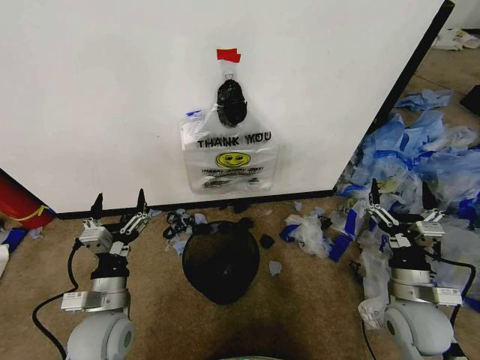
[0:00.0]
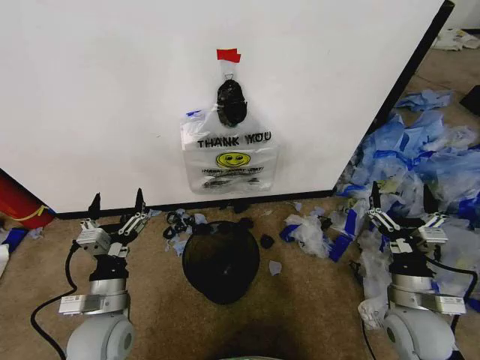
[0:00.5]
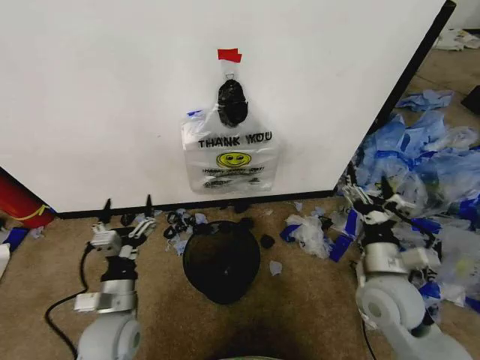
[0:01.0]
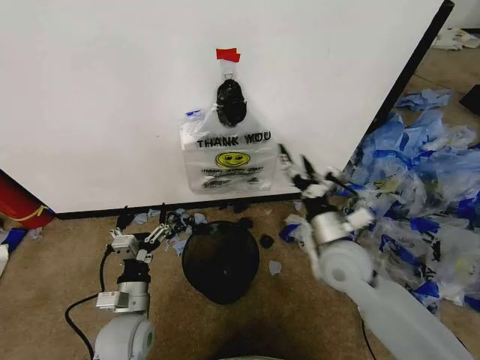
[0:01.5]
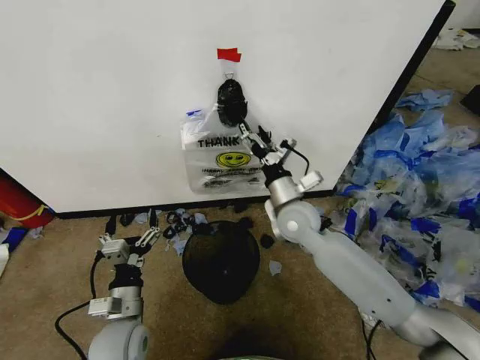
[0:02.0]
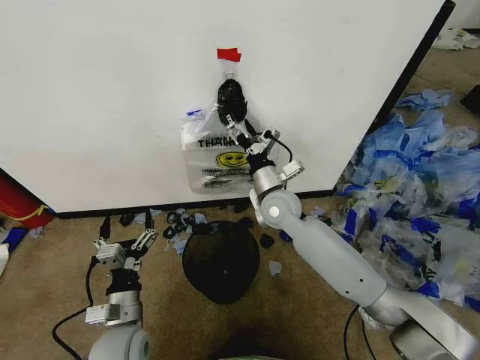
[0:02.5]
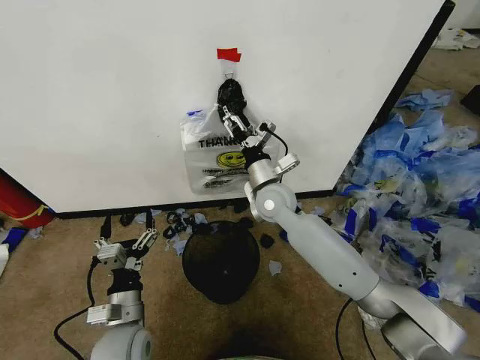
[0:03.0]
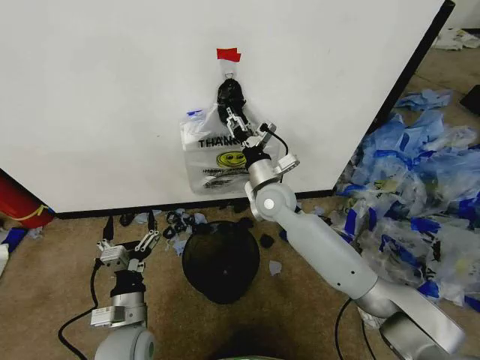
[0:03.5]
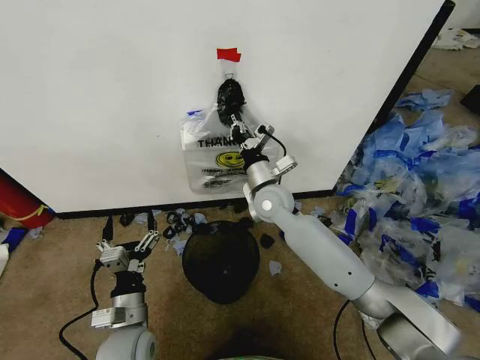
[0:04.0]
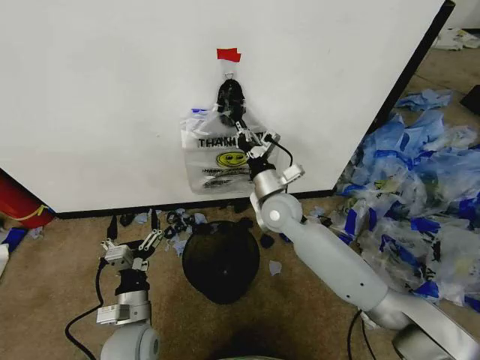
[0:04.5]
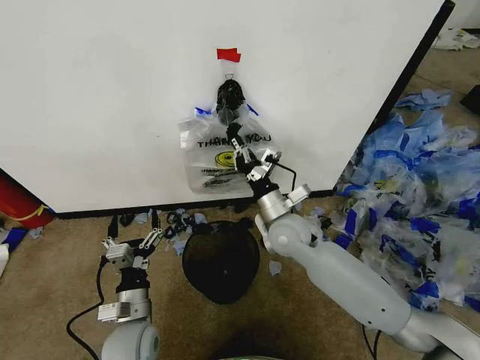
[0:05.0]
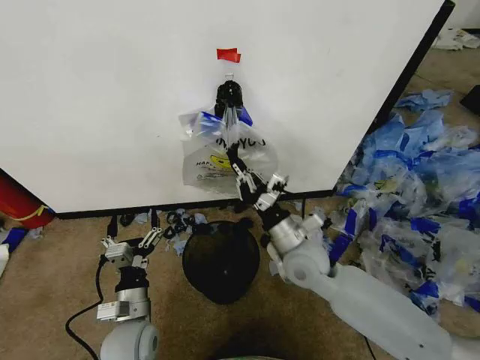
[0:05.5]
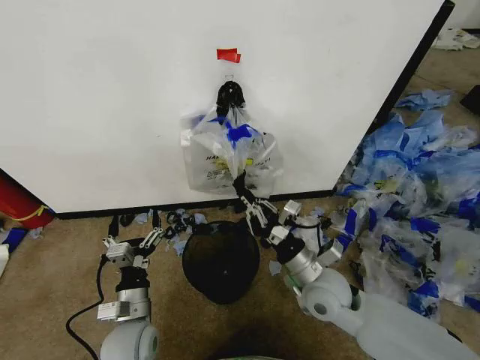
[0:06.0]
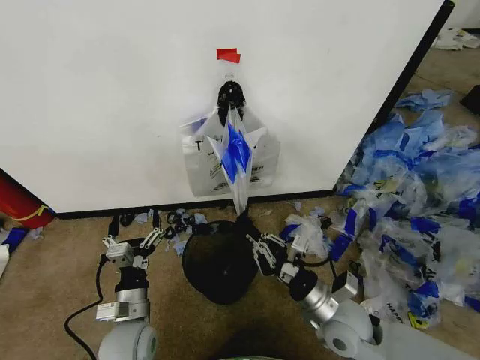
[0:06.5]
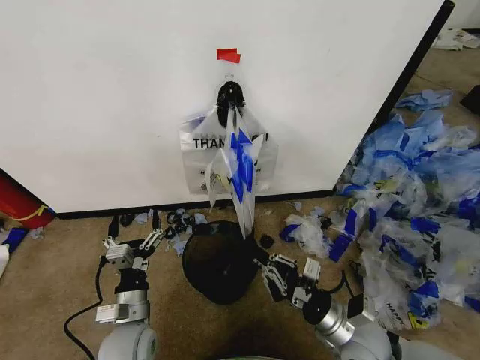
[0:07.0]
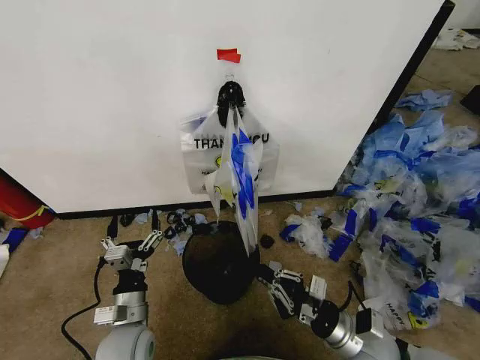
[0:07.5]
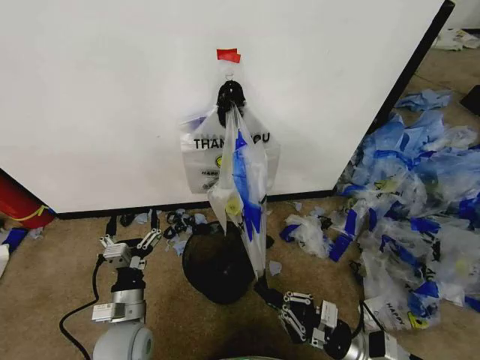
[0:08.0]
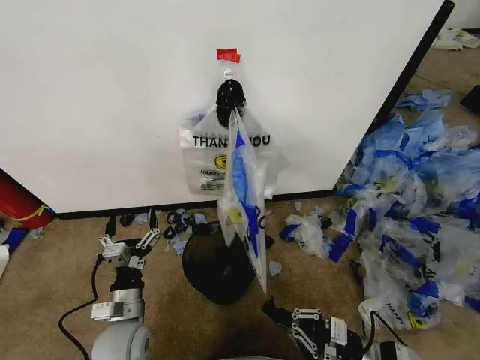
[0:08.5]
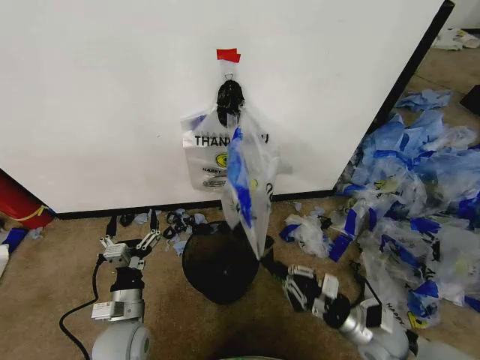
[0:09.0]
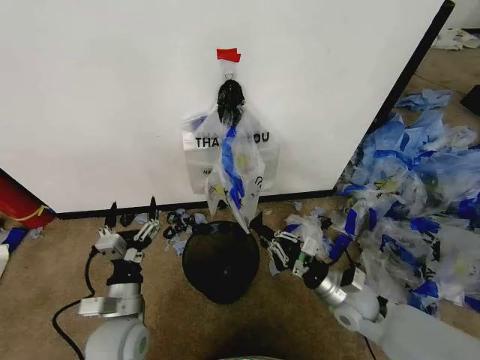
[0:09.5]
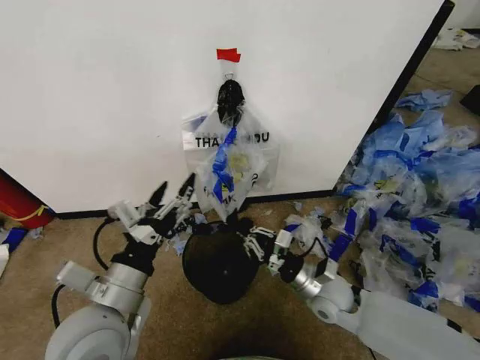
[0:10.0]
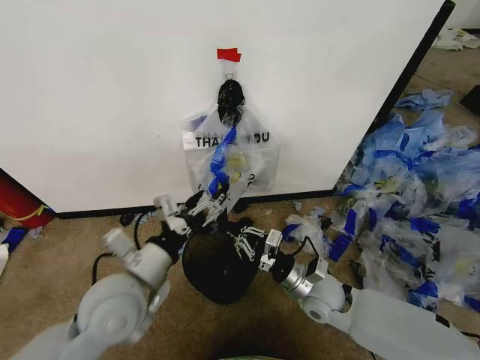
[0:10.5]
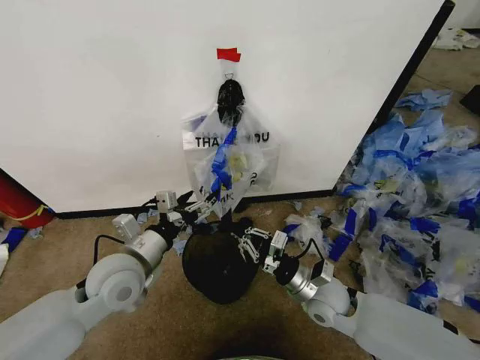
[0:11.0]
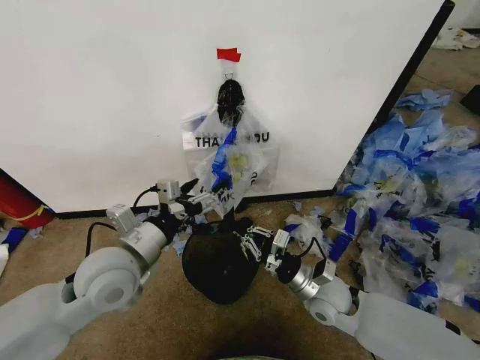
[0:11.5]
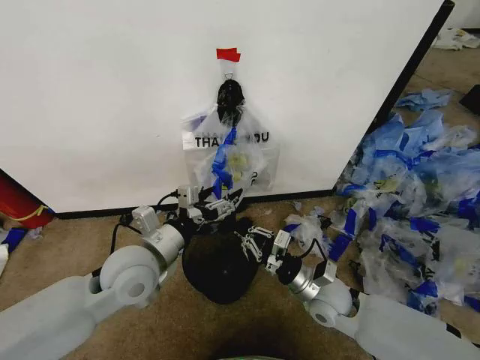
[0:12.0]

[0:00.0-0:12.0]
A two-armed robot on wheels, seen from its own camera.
Task of the whole recording: Pick up the garbage bag from the wall and place it over the trash bin.
0:02.0 to 0:04.0: The right gripper shifts by roughly 5 cm, and closes its fingers.
0:04.0 to 0:06.0: The right gripper heads backward, to the right and downward, covering approximately 20 cm.
0:06.0 to 0:08.0: The right gripper is displaced backward, to the right and downward by some 15 cm.
0:08.0 to 0:10.0: The left gripper goes about 15 cm upward. Meanwhile the right gripper travels forward and to the left by roughly 15 cm.
0:10.0 to 0:12.0: The left gripper moves forward, about 10 cm.

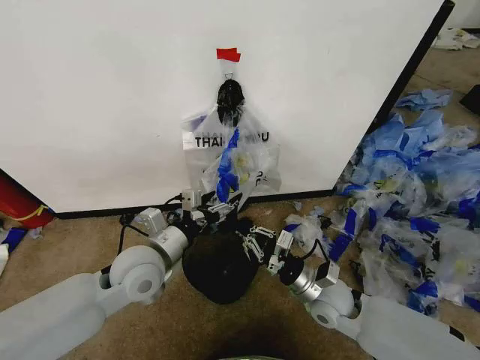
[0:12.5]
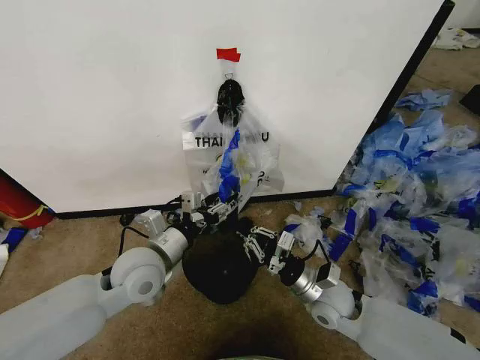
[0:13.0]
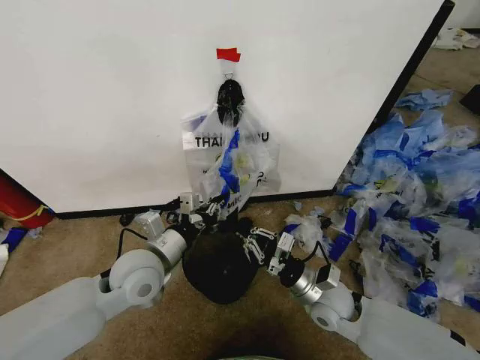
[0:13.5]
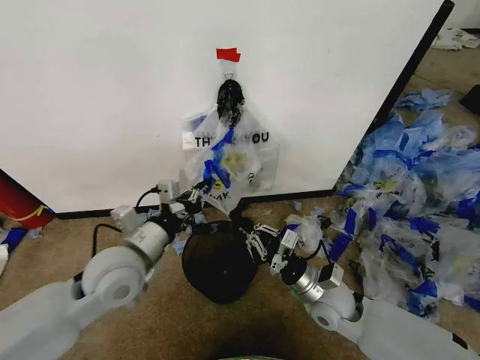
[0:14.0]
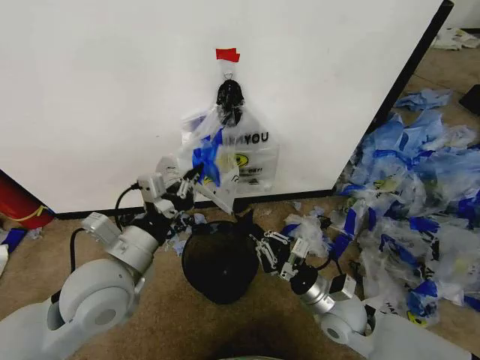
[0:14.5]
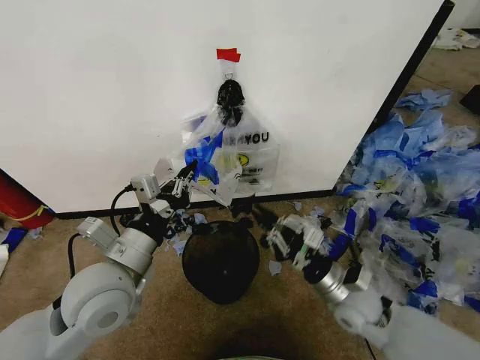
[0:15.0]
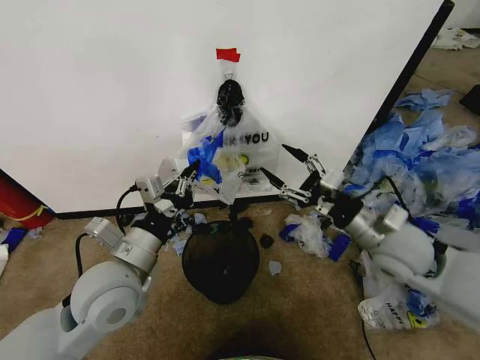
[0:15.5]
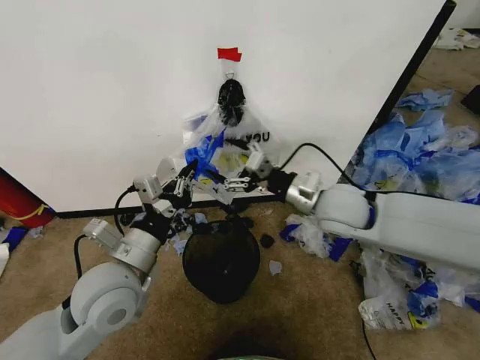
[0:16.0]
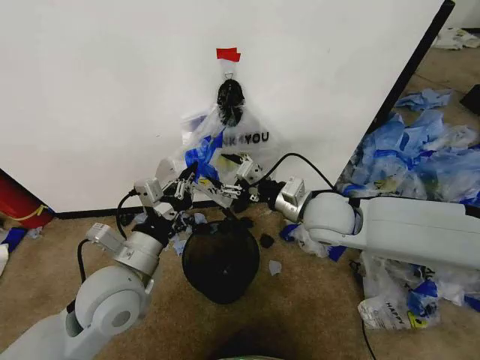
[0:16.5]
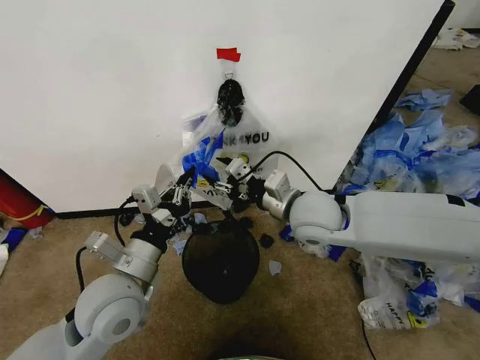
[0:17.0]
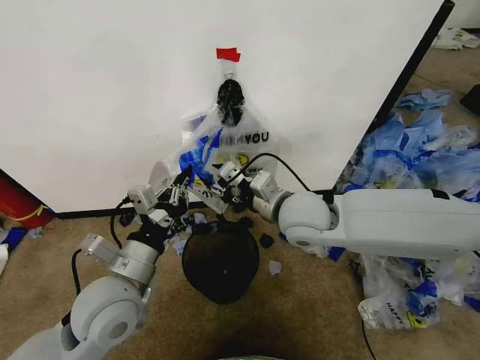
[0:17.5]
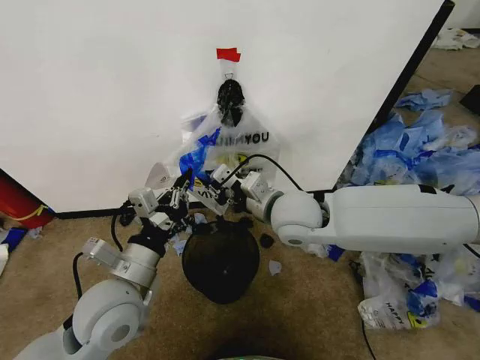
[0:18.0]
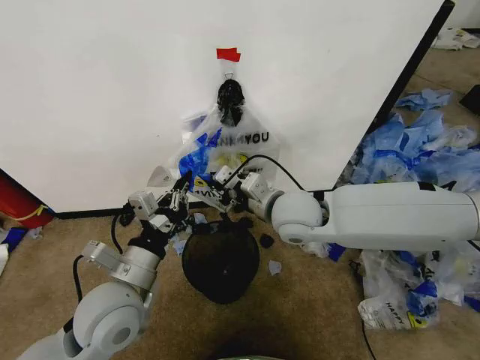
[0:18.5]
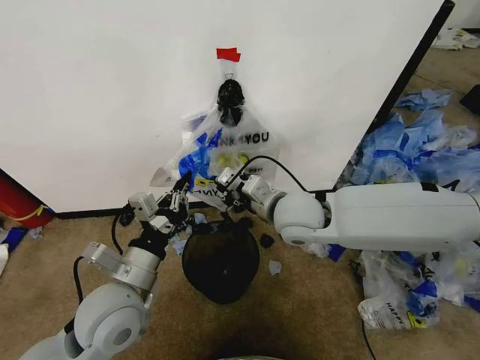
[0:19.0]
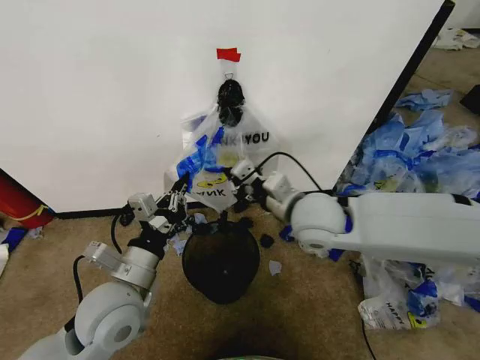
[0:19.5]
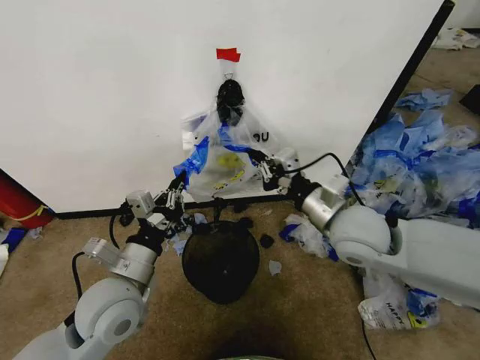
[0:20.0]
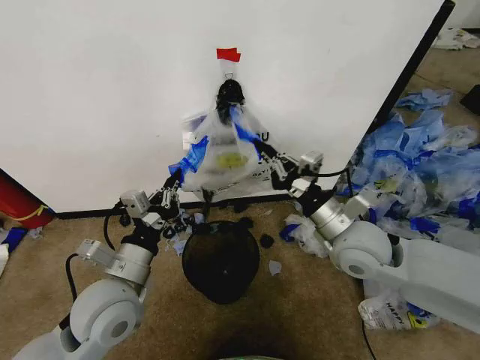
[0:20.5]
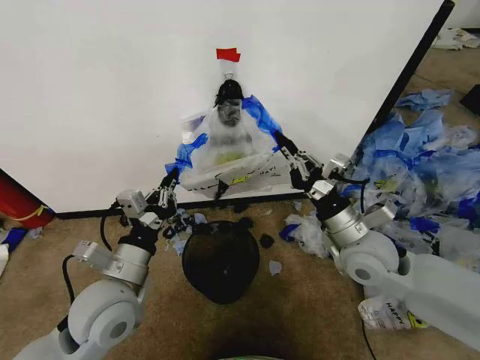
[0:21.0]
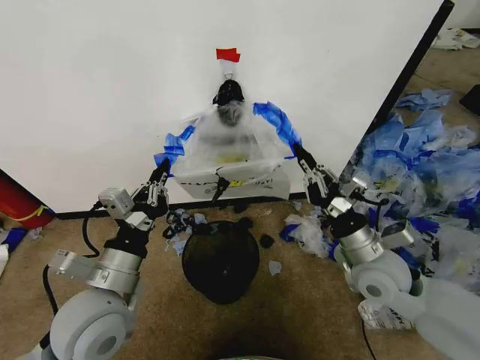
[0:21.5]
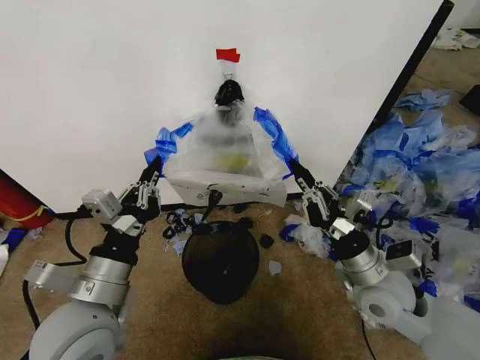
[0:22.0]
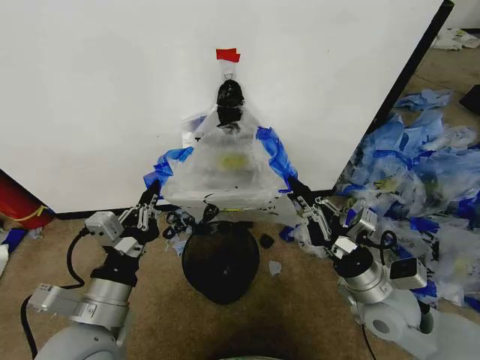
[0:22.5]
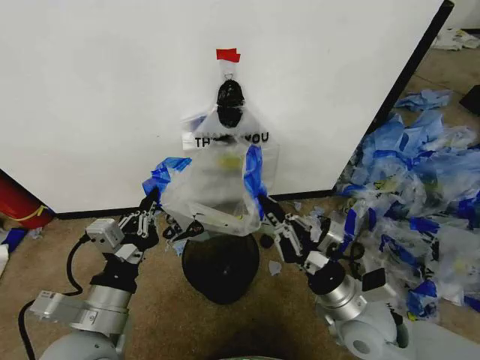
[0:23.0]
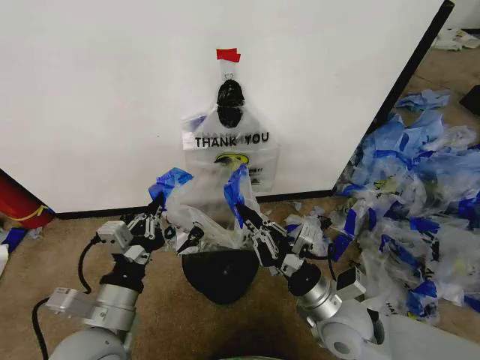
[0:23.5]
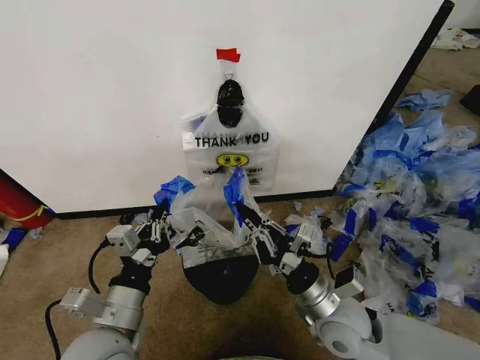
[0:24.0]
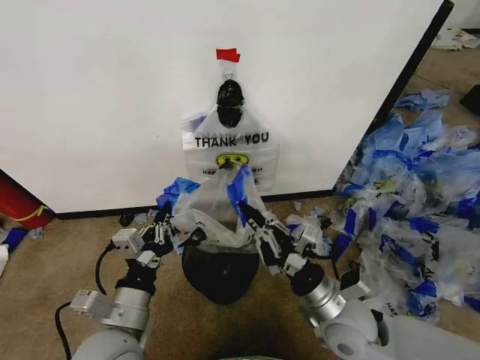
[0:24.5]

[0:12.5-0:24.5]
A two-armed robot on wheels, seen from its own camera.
Task of the whole recording: Pick up the garbage bag from the wall and place it over the trash bin.
0:12.5 to 0:14.5: The left gripper travels backward and upward by roughly 10 cm, and closes its fingers.
0:14.5 to 0:16.5: The right gripper is displaced upward and forward by roughly 20 cm, and opens its fingers.
0:16.5 to 0:18.5: The right gripper goes roughly 5 cm to the left, and closes.
0:18.5 to 0:20.5: The right gripper moves to the right and backward, some 15 cm.
0:20.5 to 0:22.5: The right gripper shifts about 10 cm backward and downward; the left gripper goes some 5 cm backward.
0:22.5 to 0:24.5: The right gripper travels to the left by roughly 5 cm, while the left gripper ends up some 5 cm from where it was.

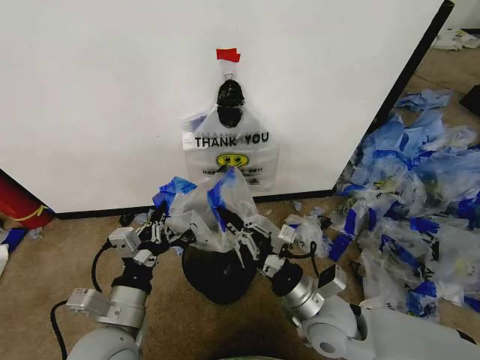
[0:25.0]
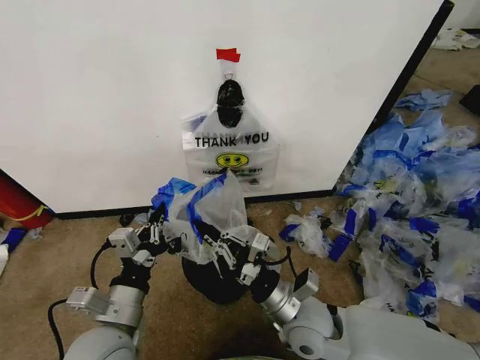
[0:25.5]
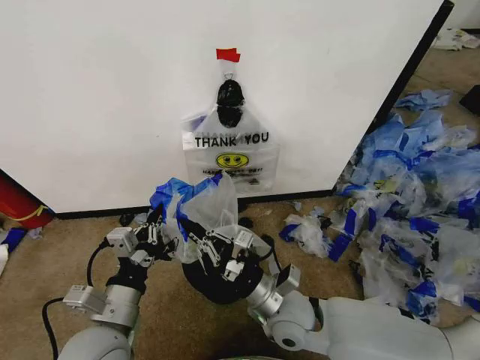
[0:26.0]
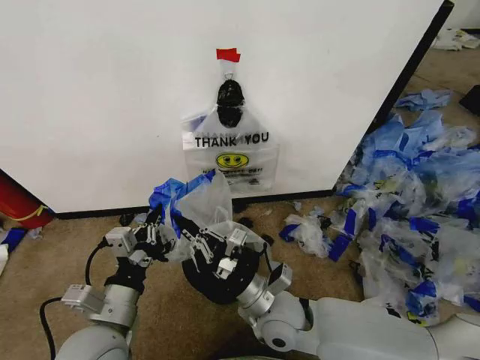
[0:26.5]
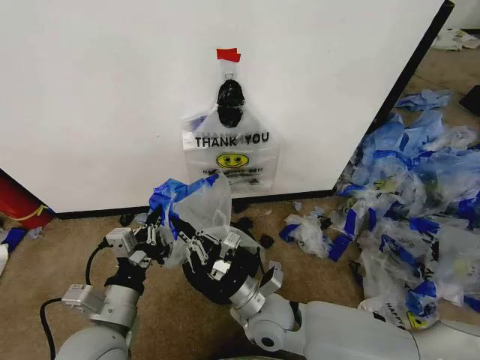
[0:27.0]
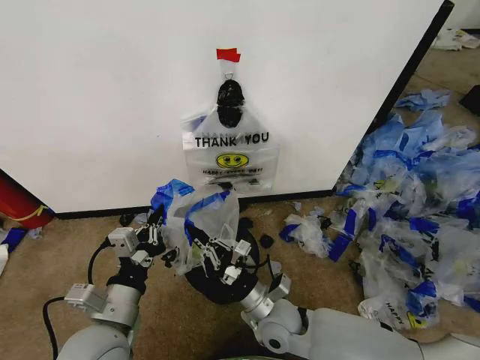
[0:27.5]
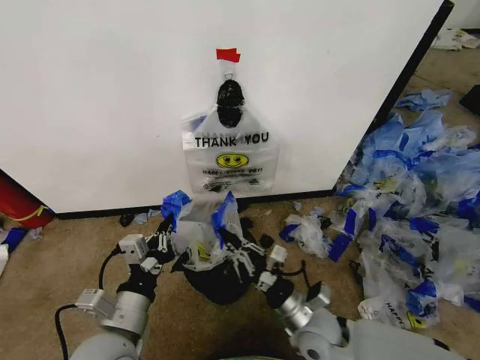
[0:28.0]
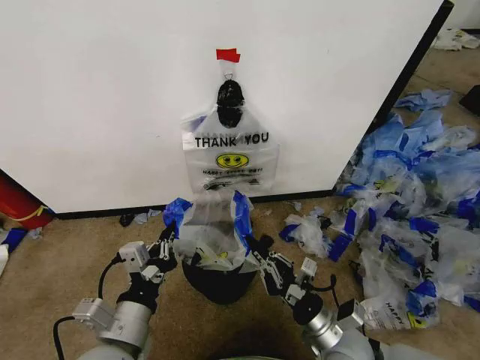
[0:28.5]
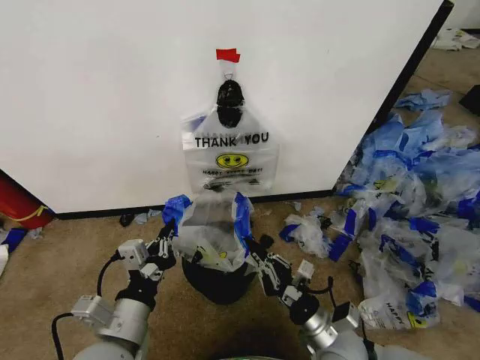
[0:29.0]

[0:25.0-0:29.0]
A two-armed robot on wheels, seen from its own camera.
Task of the whole recording: Pick up the garbage bag from the wall and place it over the trash bin.
0:25.0 to 0:27.0: The right gripper goes roughly 10 cm to the left.
0:27.0 to 0:29.0: The right gripper shifts approximately 15 cm to the right.
